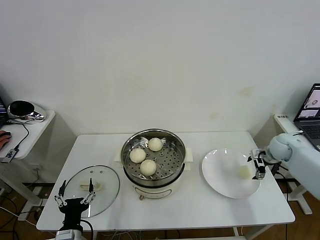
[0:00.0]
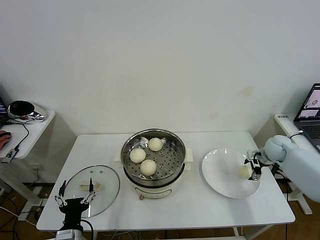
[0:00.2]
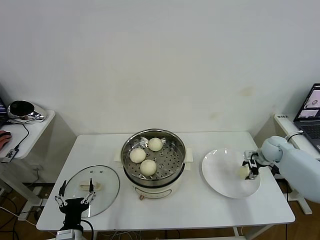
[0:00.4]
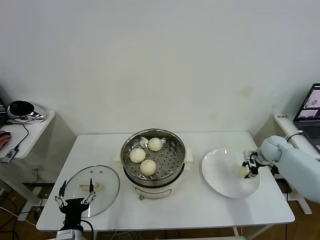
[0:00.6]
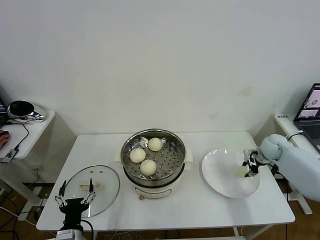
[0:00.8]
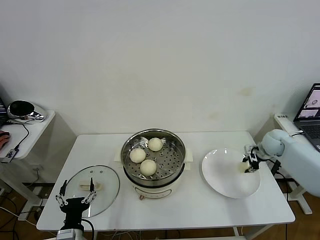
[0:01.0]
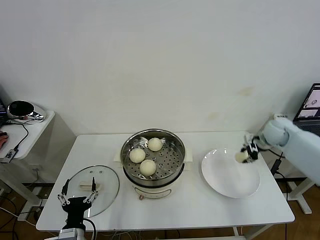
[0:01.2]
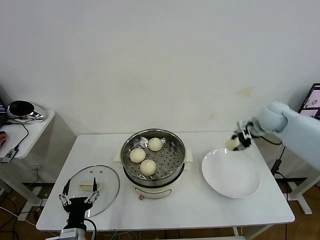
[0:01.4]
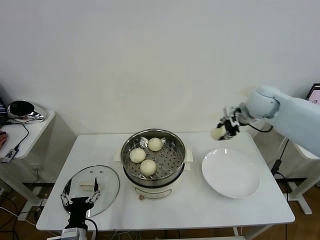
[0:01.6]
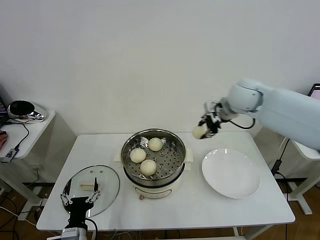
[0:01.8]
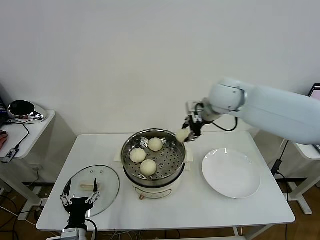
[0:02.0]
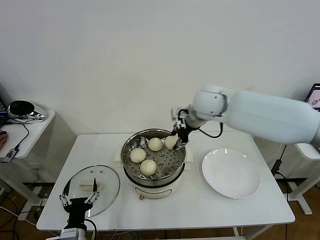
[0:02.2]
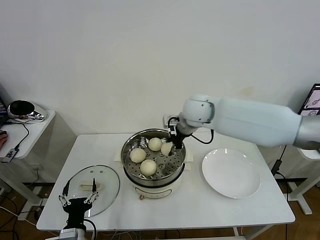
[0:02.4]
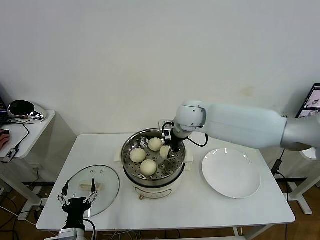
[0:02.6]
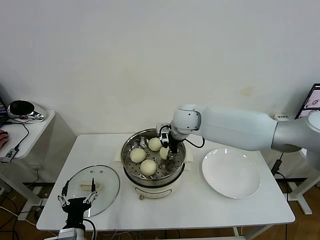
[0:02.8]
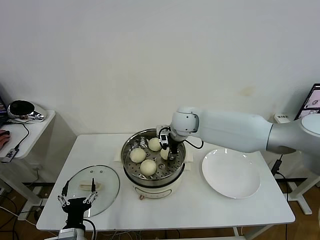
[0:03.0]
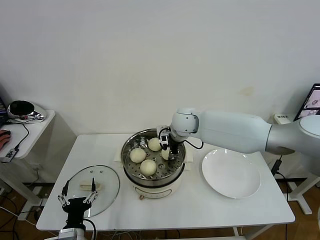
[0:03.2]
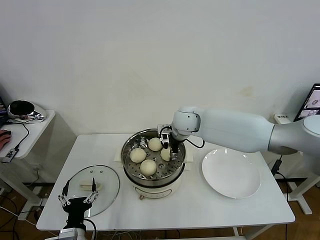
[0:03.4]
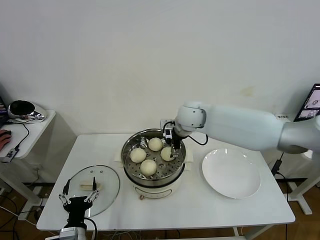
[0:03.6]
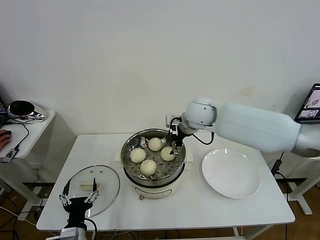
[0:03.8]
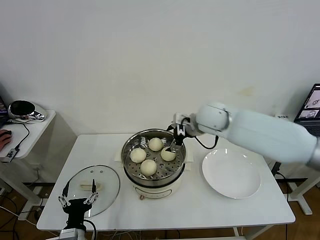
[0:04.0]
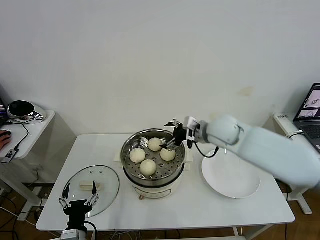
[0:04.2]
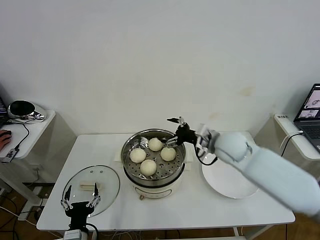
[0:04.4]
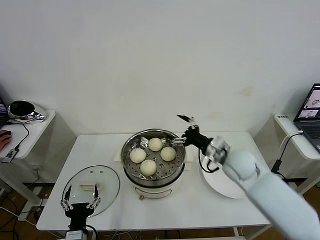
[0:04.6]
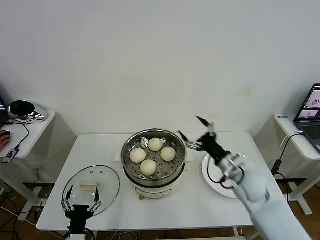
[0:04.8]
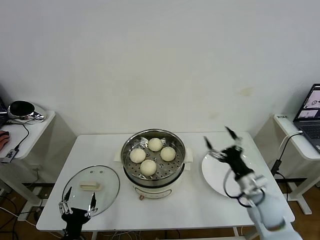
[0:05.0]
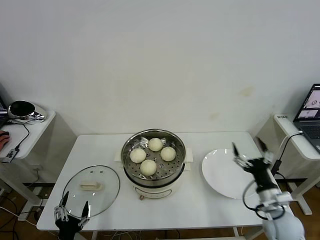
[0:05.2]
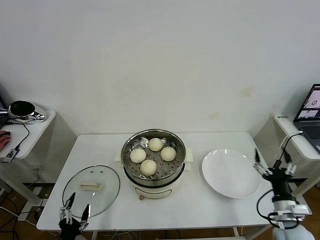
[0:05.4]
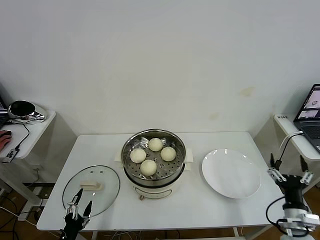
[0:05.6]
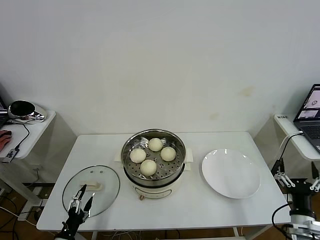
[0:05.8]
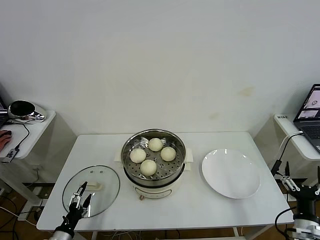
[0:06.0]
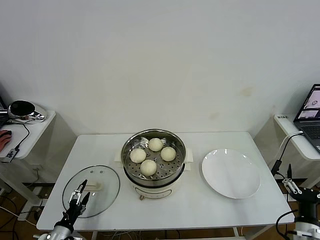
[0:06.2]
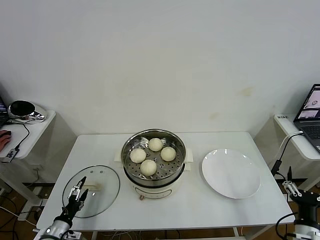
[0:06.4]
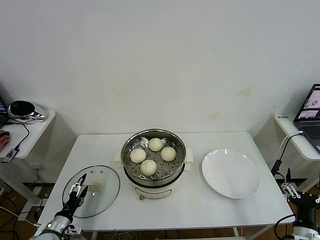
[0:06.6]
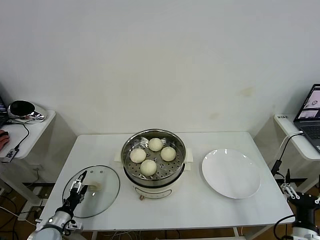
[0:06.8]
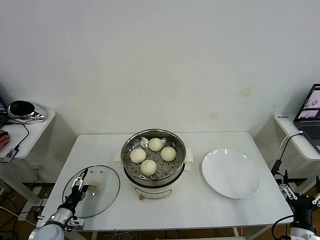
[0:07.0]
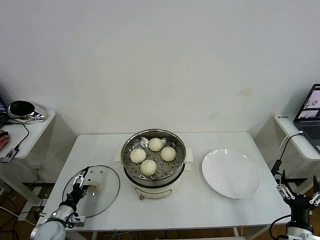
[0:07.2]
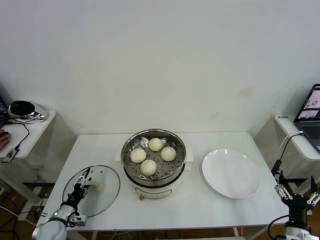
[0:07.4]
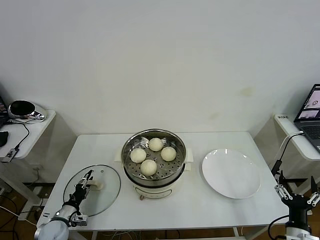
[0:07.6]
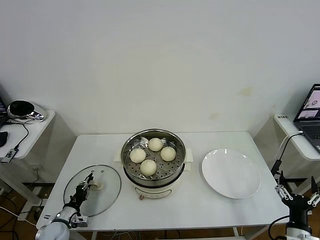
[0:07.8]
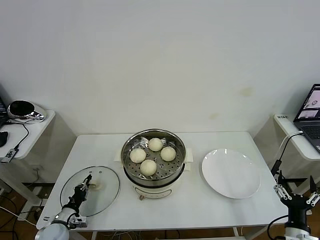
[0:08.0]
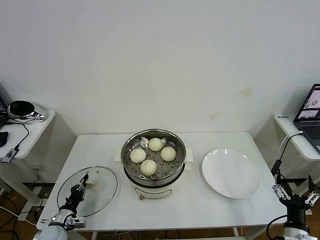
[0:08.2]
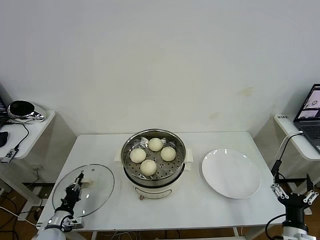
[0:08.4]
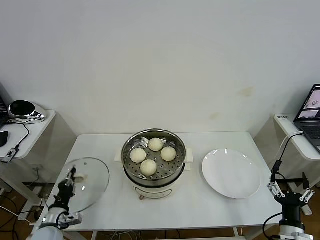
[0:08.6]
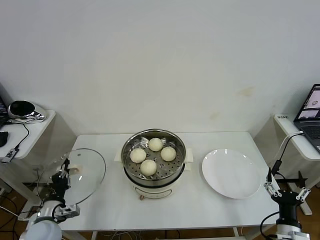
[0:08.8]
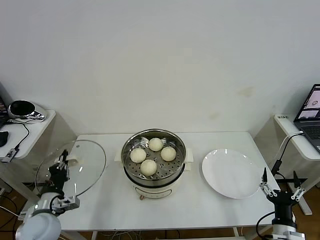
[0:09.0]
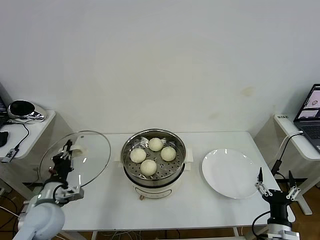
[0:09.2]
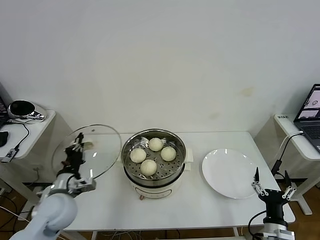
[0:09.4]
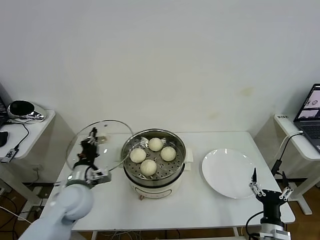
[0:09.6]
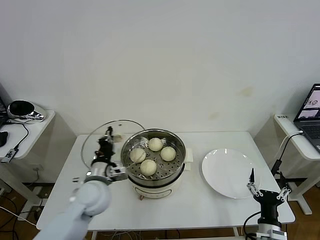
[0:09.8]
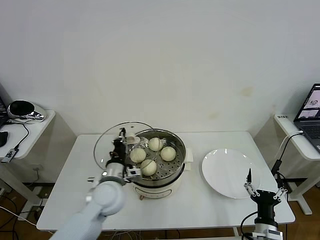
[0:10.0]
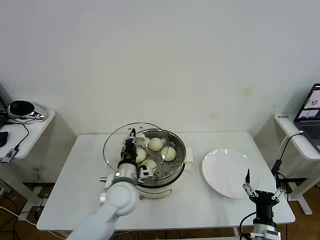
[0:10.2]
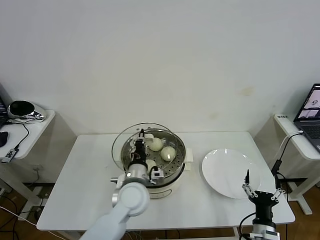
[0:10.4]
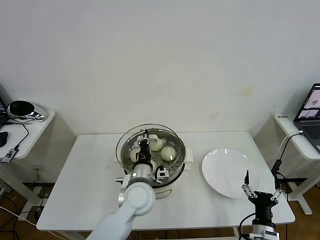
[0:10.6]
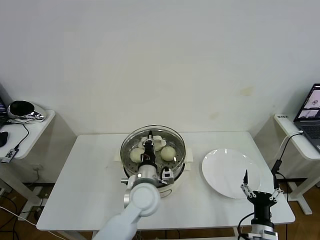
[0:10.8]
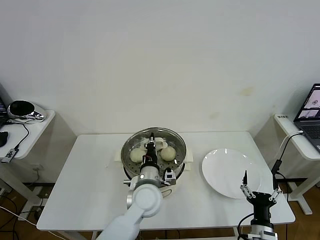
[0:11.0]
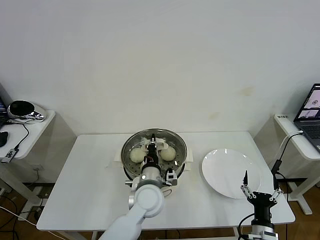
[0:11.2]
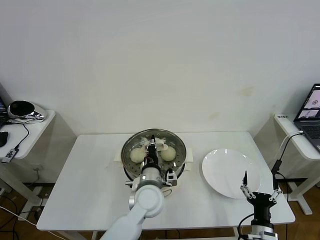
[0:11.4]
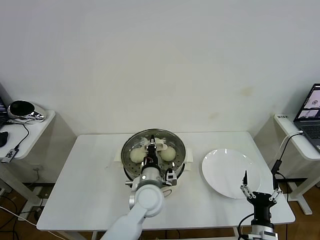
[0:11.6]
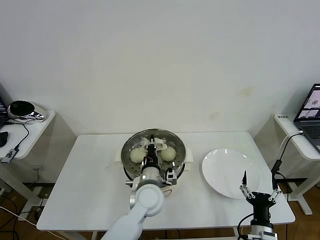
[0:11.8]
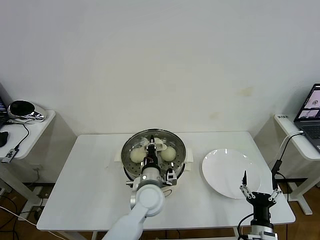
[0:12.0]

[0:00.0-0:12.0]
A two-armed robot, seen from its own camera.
Task of the whole recording: take steamed baozi put them in steamer then cover it.
Step, 0:00.8 to 0:03.4: Place the baozi on the steamer with right gripper.
Step, 0:03.8 to 0:08.0: Grasp the pot lid with left gripper.
0:00.0 to 0:01.6: The right gripper heads upward and to the left, covering roughly 25 cm, and closes its fingers.
0:01.6 to 0:03.0: The right gripper is displaced to the left by roughly 20 cm.
0:03.0 to 0:04.4: The right gripper shifts about 15 cm to the right and backward, and opens.
0:04.4 to 0:06.0: The right gripper travels backward, to the right and downward by some 35 cm, while the left gripper shifts some 15 cm to the left and downward.
0:06.0 to 0:07.6: The left gripper shifts about 10 cm forward, and closes its fingers.
0:07.6 to 0:09.0: The left gripper goes approximately 15 cm upward, and closes its fingers.
0:09.0 to 0:10.4: The right gripper shifts roughly 5 cm to the left, while the left gripper moves to the right, approximately 25 cm.
0:10.4 to 0:12.0: The left gripper moves to the right, approximately 5 cm.

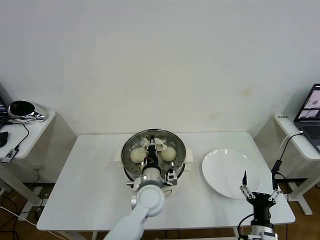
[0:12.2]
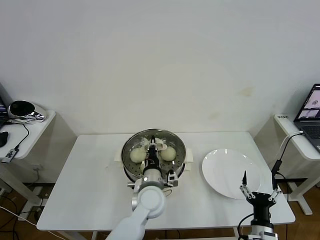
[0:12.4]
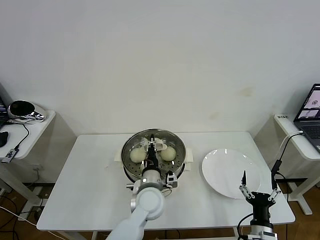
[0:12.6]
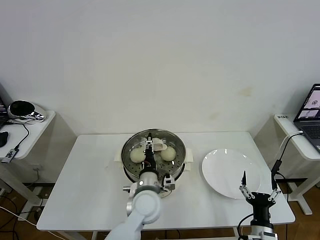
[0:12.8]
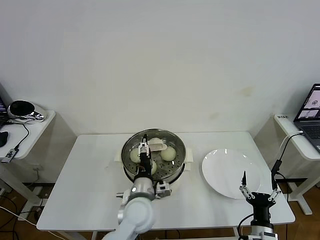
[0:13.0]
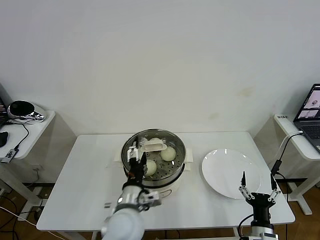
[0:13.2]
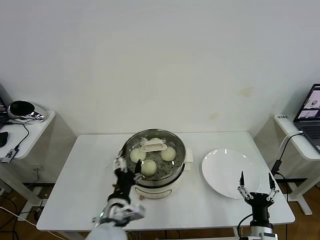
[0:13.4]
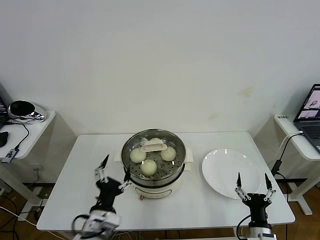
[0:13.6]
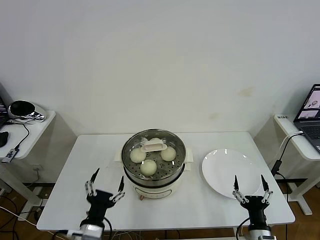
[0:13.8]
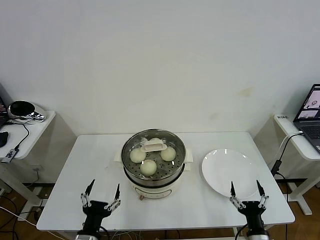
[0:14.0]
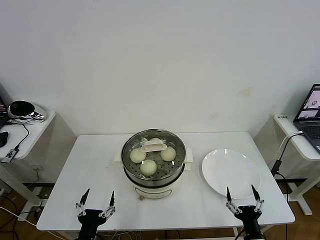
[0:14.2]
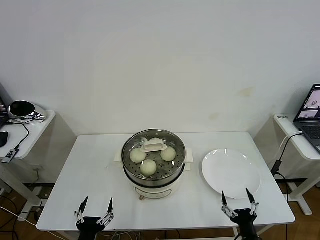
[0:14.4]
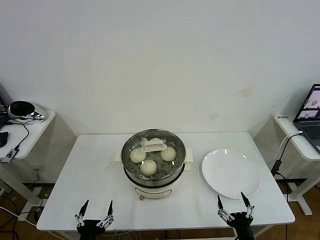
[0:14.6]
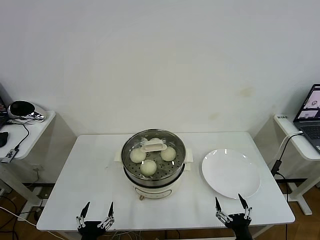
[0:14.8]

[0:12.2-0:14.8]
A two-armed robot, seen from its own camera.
Task of the whole recording: take steamed baozi put them in steamer then cover it.
0:12.2 to 0:13.4: The left gripper moves backward and to the left, about 15 cm, and opens.
0:13.4 to 0:14.8: The left gripper travels backward, to the left and downward by roughly 20 cm. Meanwhile the right gripper goes some 5 cm backward.
